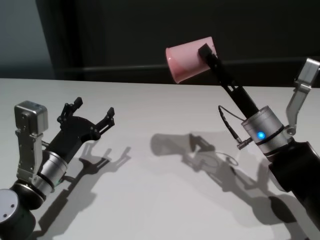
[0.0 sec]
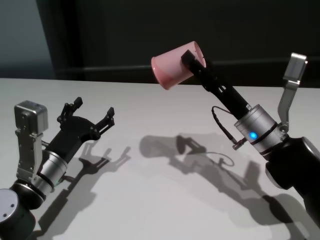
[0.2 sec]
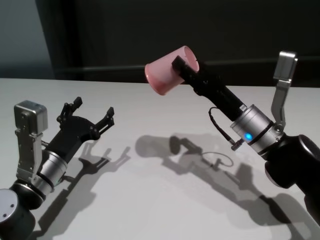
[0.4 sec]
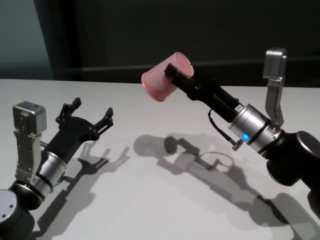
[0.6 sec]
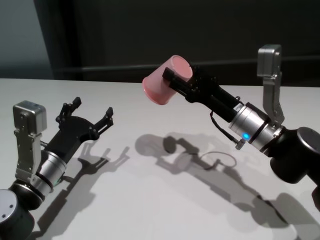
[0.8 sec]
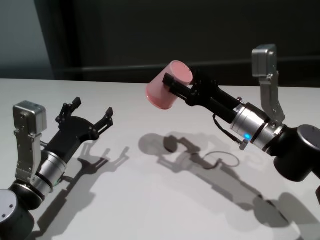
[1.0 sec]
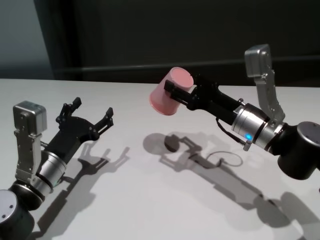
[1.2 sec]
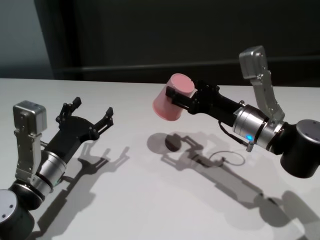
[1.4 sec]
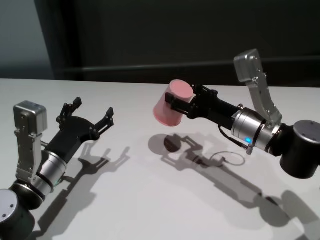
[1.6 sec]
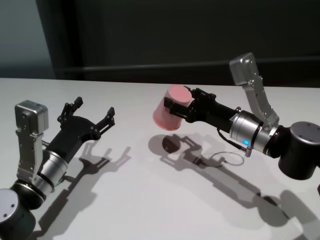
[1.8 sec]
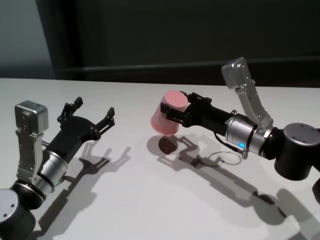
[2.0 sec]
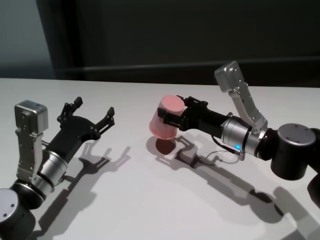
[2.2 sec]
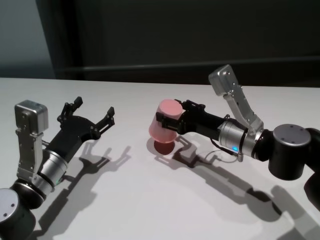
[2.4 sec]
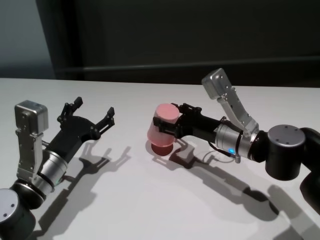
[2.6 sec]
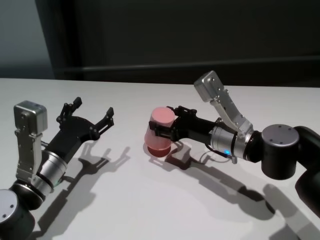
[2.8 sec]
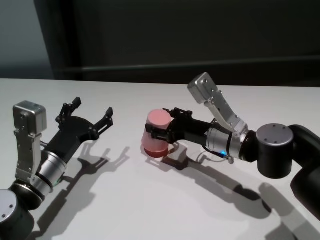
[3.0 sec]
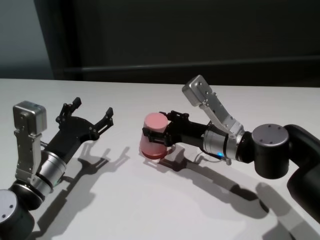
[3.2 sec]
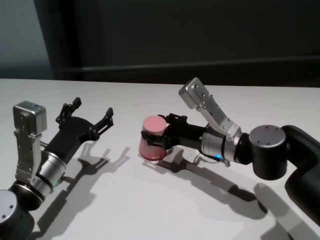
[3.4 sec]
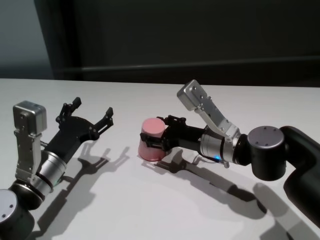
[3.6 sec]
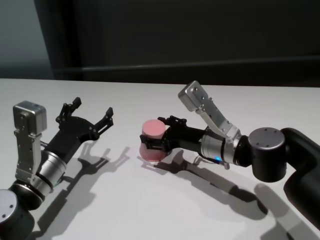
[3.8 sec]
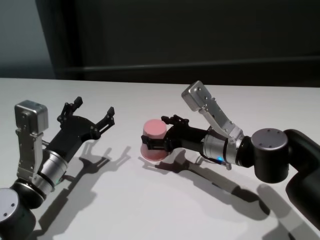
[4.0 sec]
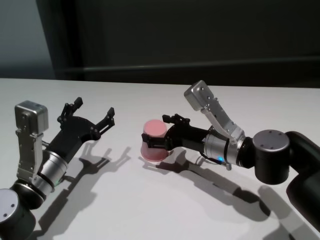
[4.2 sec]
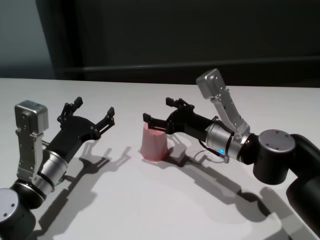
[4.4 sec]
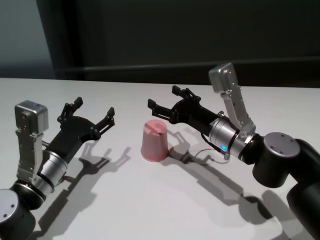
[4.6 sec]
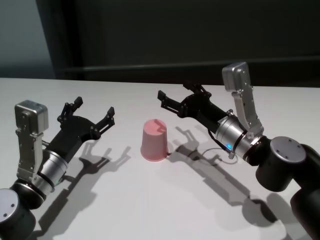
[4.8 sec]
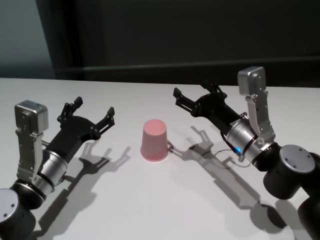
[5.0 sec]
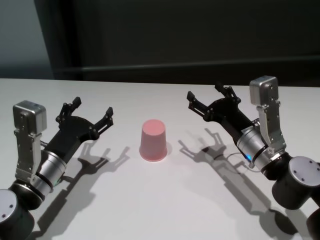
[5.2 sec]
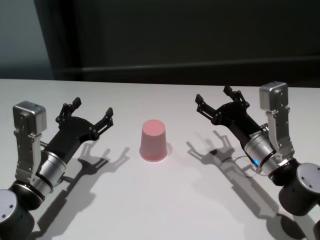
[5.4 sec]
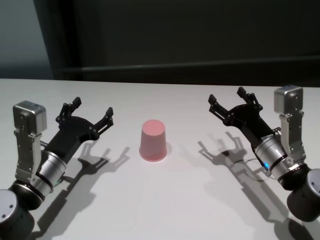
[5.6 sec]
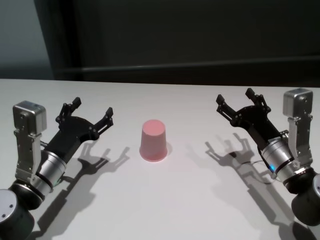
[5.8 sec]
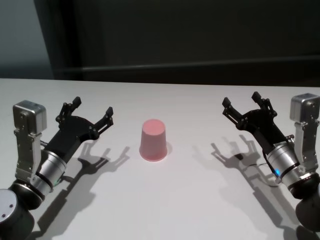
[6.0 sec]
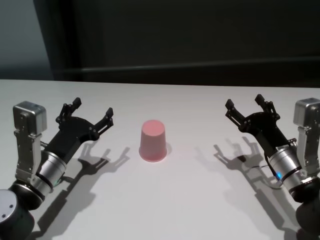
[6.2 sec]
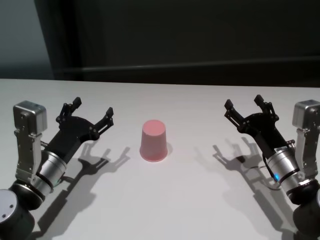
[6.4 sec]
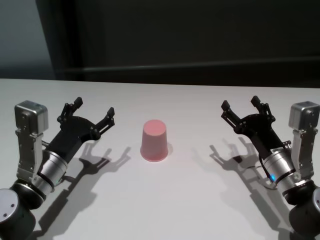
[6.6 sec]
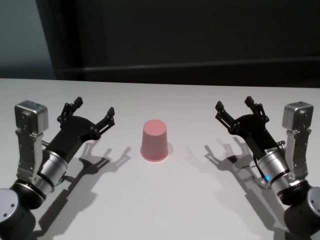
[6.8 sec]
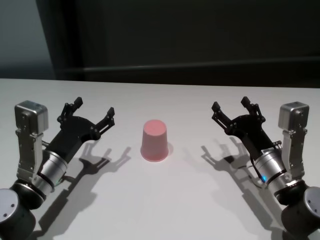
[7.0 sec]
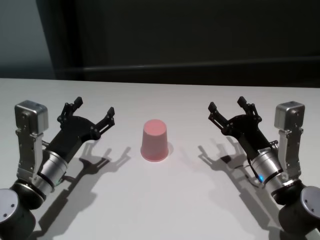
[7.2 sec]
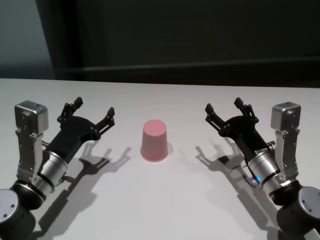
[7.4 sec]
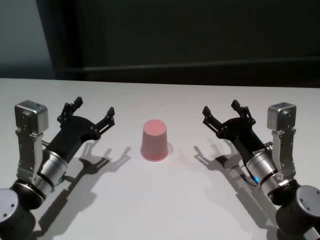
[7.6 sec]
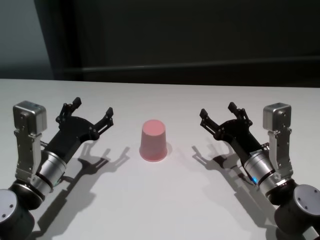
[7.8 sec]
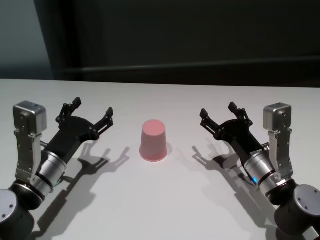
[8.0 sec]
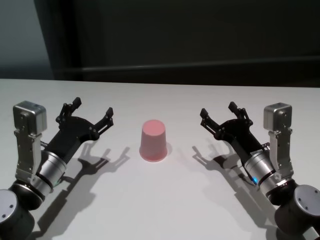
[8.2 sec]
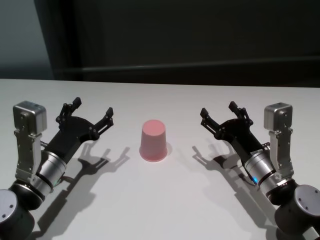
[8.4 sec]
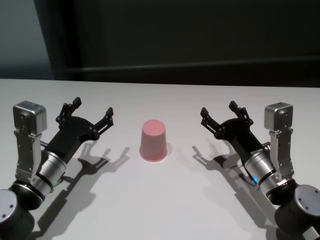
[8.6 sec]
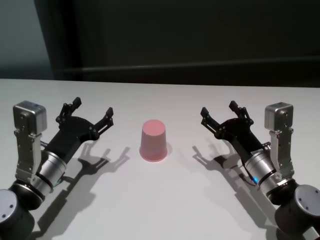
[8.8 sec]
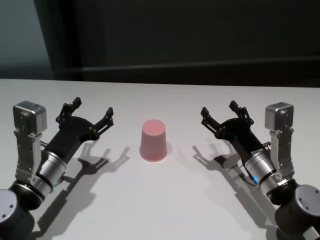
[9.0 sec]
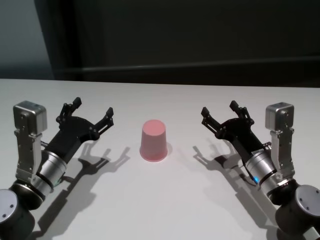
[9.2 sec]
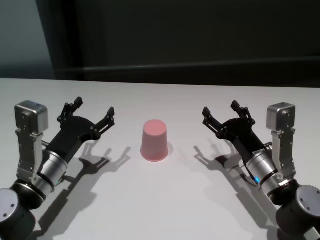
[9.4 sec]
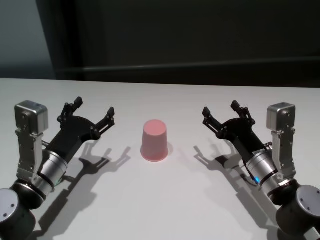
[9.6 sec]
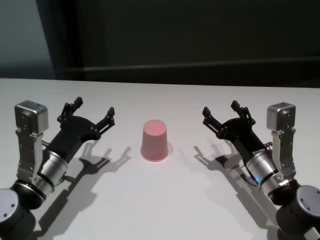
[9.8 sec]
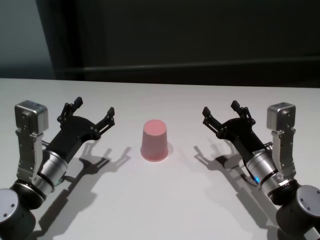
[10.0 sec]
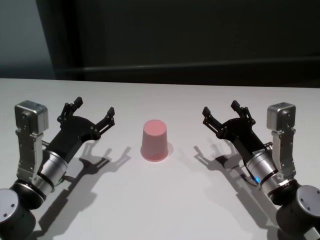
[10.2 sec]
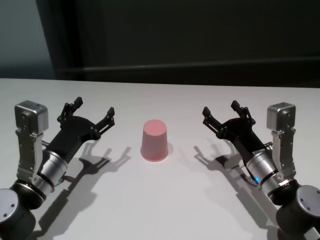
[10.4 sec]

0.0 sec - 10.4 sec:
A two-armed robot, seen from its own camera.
Task of the whole recording: On the white table pick up the cup with one hand and transfer it to the other hand before turning it over.
Step, 0.0 sec - 4.2 sec: Place the cup on the table with right gripper.
